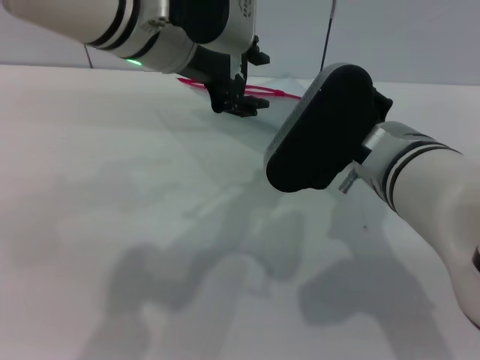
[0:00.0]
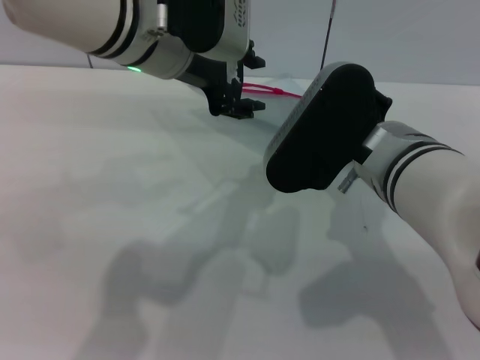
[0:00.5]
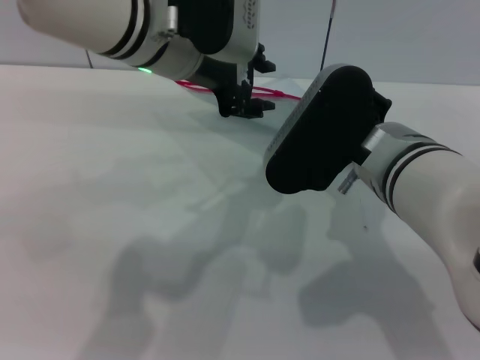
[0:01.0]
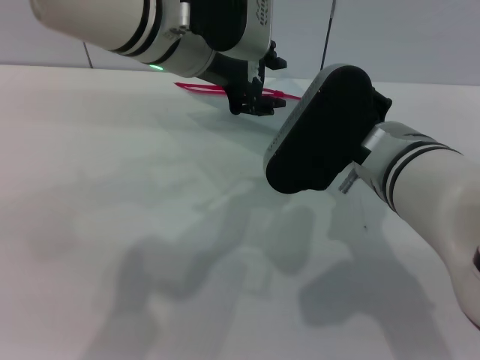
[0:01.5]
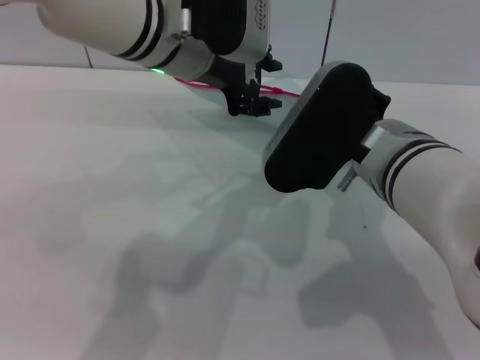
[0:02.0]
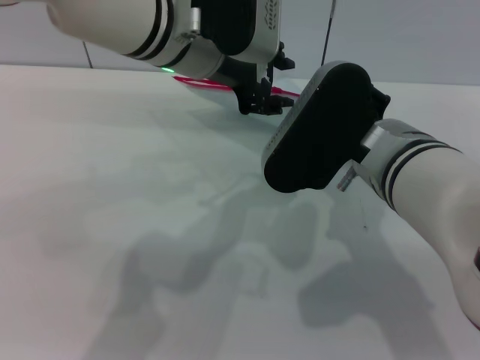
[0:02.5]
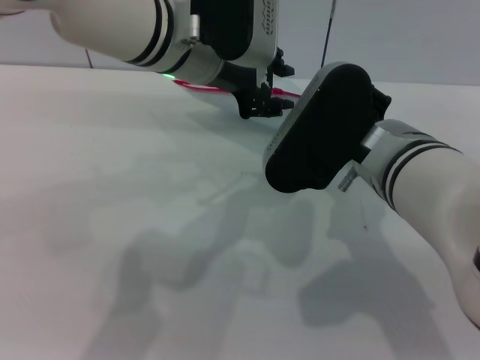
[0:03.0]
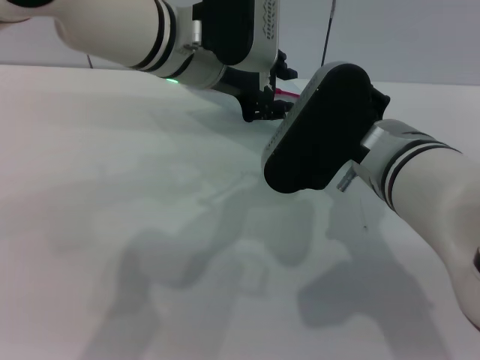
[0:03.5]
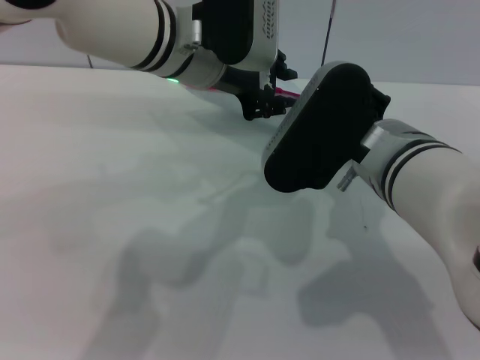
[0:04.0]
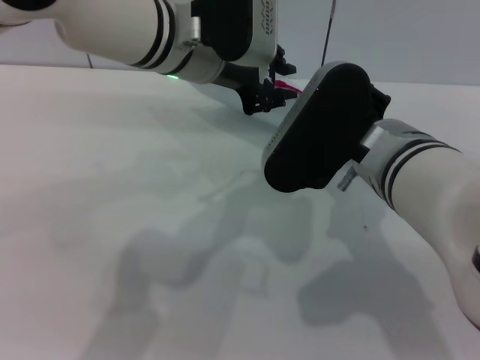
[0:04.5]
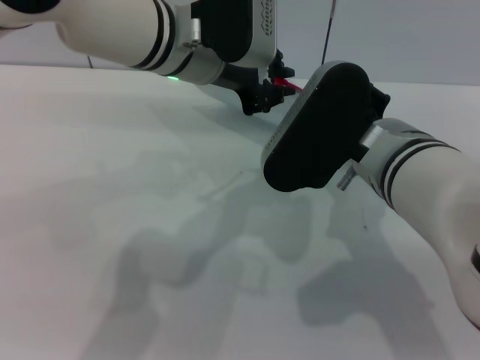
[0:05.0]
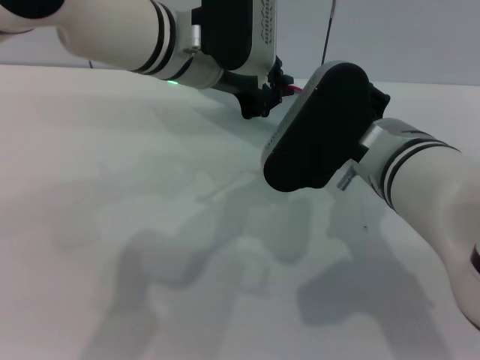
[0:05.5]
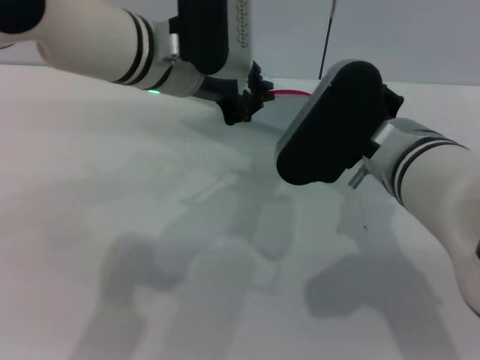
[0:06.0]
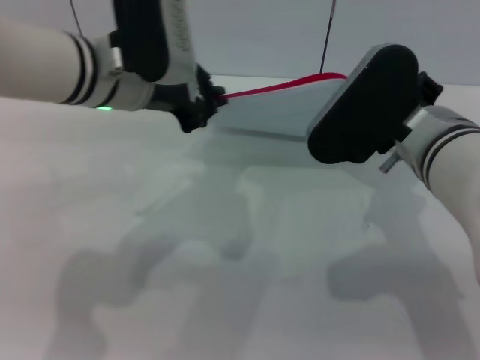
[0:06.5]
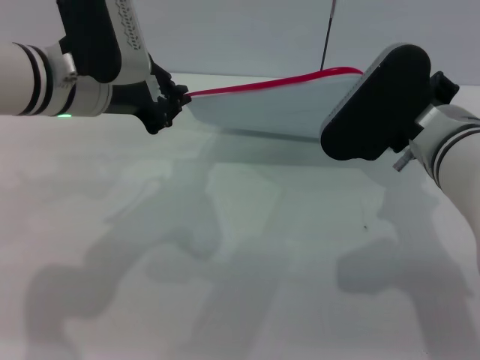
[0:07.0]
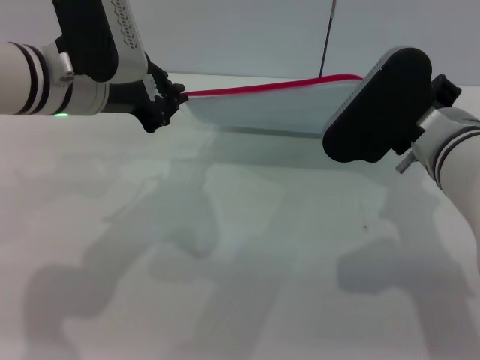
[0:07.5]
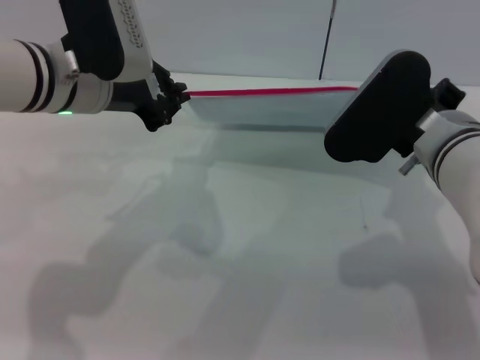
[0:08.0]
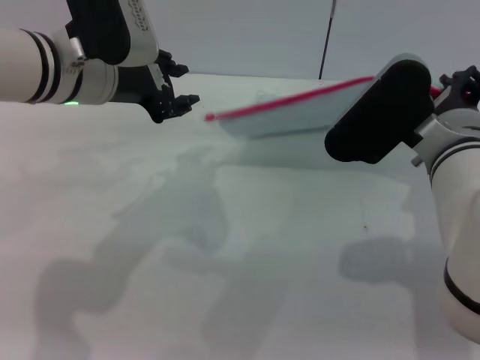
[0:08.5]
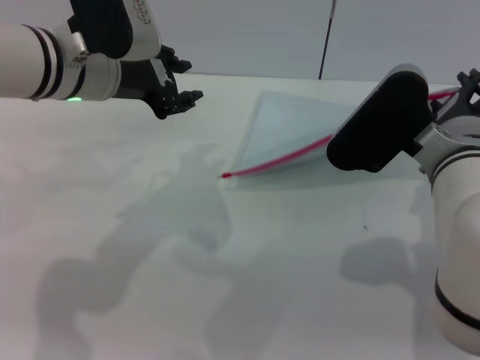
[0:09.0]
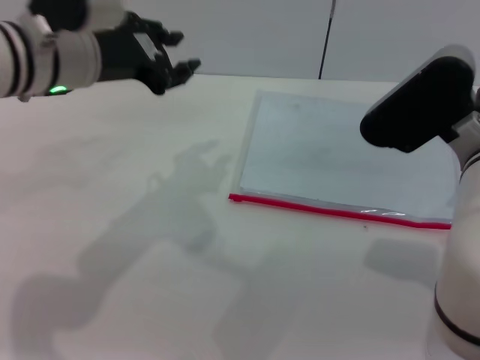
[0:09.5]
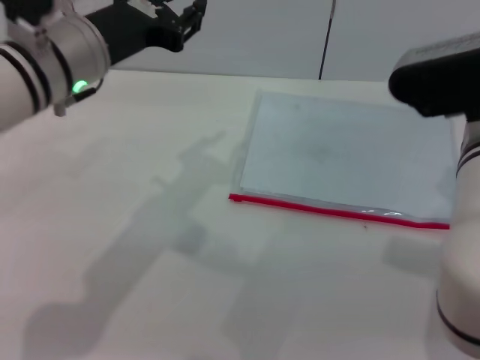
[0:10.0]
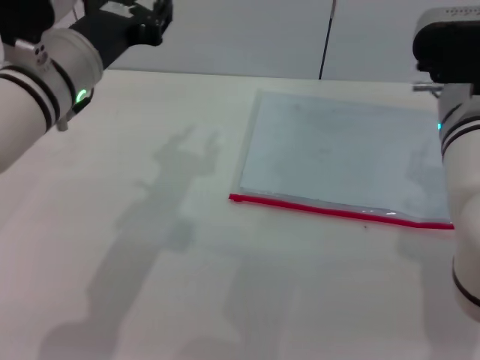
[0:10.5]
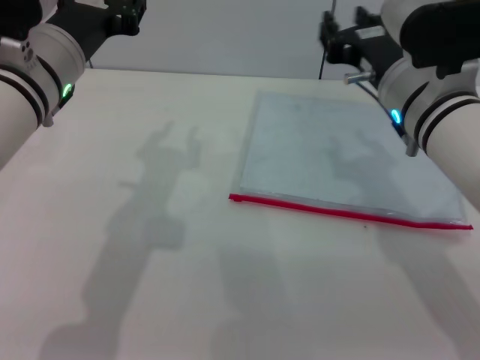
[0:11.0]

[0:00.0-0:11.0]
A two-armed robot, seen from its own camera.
Step, 0:00.0 to 0:08.0: Pulling up the zipper on the transparent plastic bag with the left gripper to close it.
Step, 0:08.5 to 0:09.0: Place the transparent plastic bag.
0:00.0 to 0:03.5: There are only small adjustments of the grippers.
0:03.5 to 0:05.5: The left gripper closes up.
0:05.5 to 0:07.5: The left gripper goes approximately 10 cm to the left. The right gripper shifts by about 5 cm.
0:07.5 to 0:09.0: The right gripper opens its fingers. Meanwhile the left gripper opens up.
0:09.0 to 0:11.0: The right gripper heads forward, covering about 5 cm.
